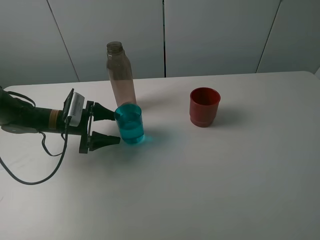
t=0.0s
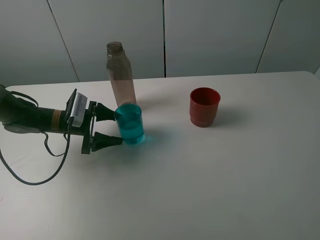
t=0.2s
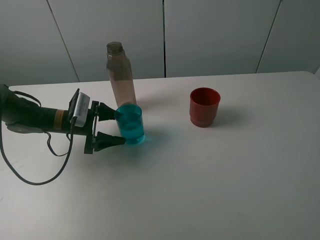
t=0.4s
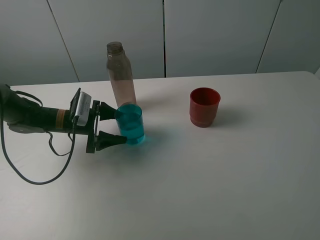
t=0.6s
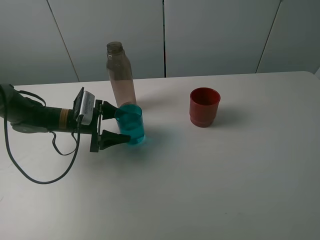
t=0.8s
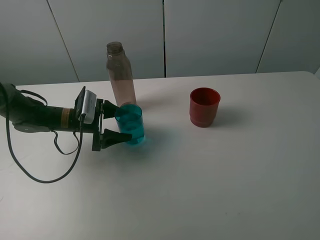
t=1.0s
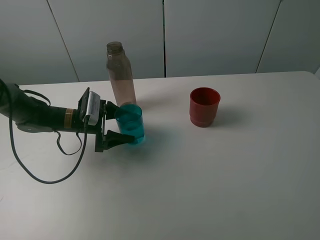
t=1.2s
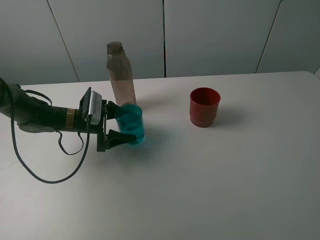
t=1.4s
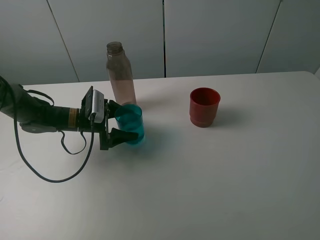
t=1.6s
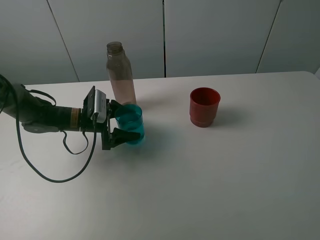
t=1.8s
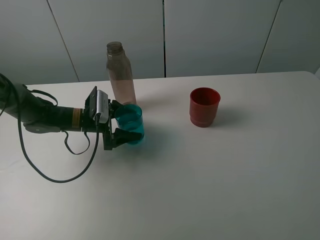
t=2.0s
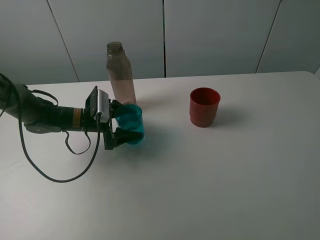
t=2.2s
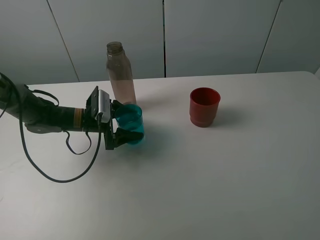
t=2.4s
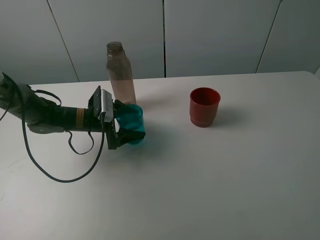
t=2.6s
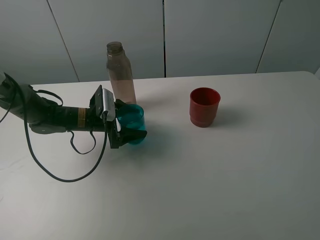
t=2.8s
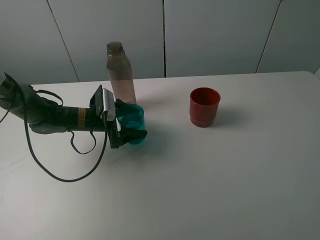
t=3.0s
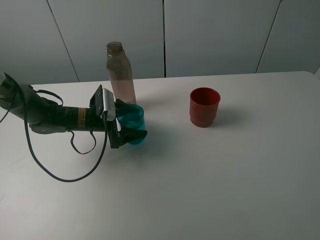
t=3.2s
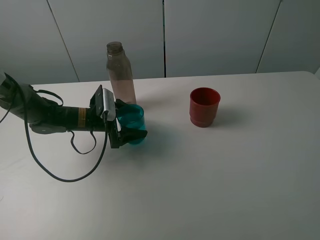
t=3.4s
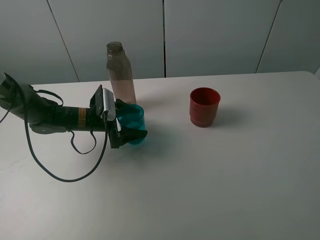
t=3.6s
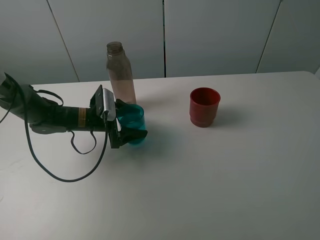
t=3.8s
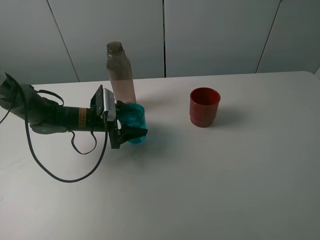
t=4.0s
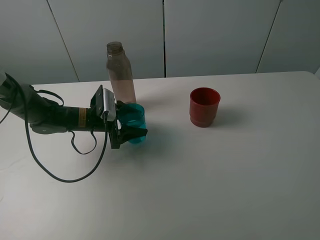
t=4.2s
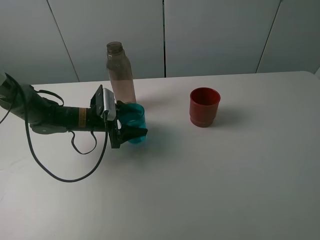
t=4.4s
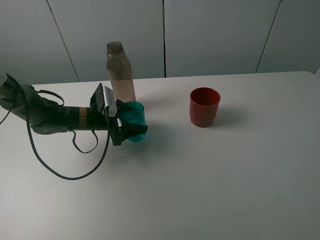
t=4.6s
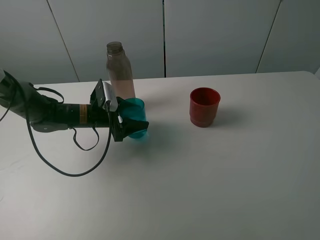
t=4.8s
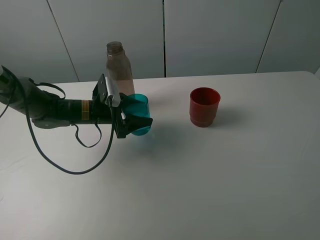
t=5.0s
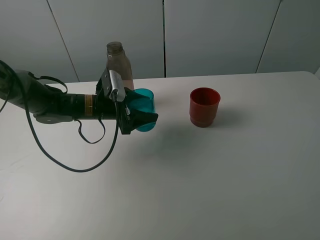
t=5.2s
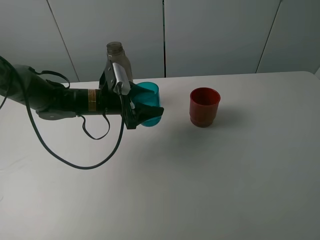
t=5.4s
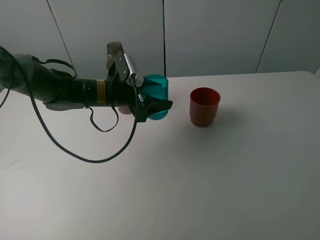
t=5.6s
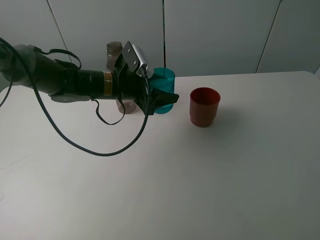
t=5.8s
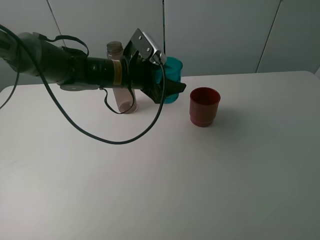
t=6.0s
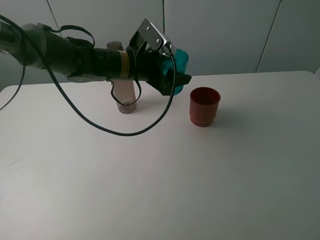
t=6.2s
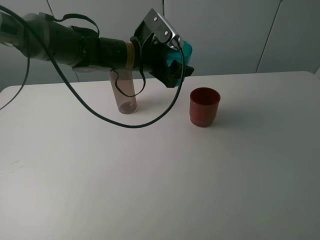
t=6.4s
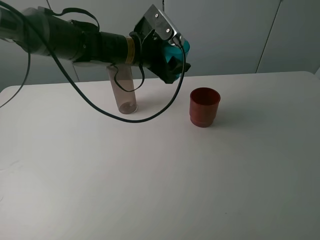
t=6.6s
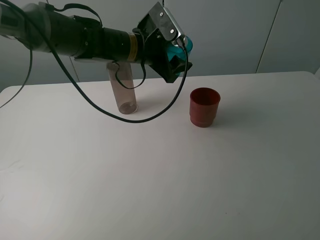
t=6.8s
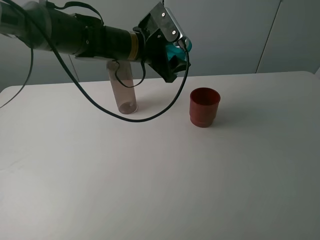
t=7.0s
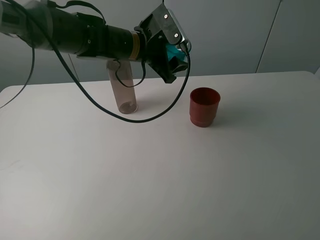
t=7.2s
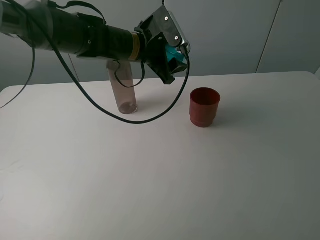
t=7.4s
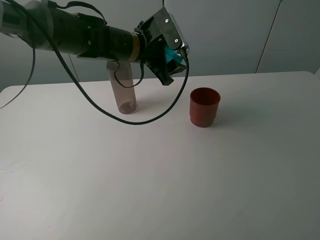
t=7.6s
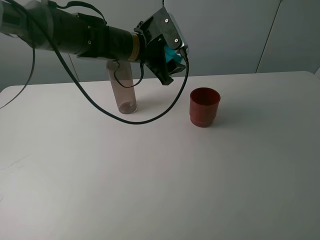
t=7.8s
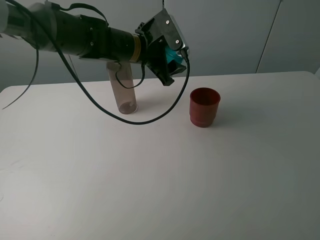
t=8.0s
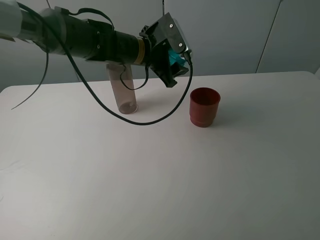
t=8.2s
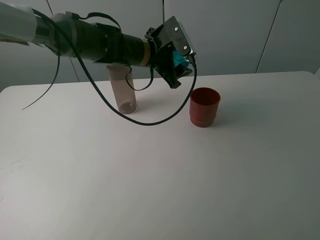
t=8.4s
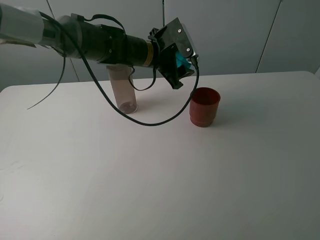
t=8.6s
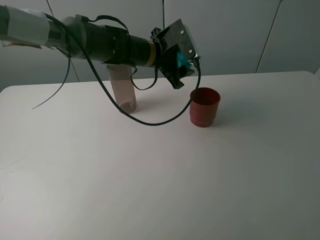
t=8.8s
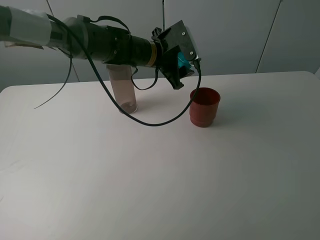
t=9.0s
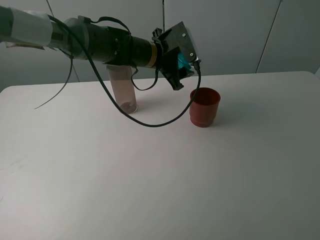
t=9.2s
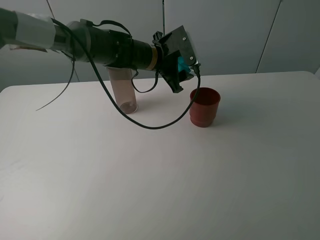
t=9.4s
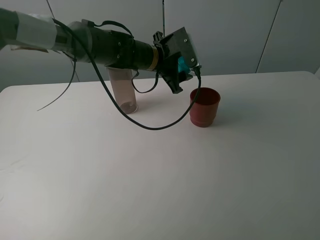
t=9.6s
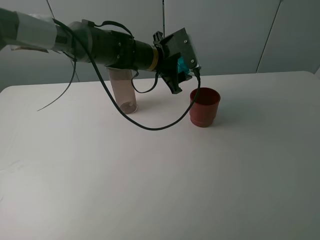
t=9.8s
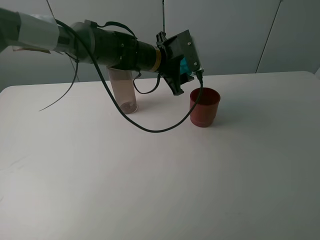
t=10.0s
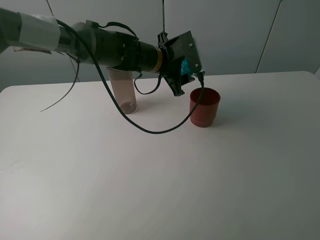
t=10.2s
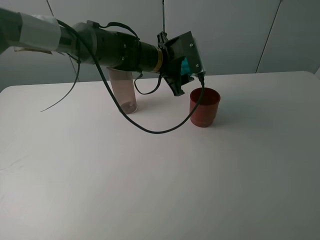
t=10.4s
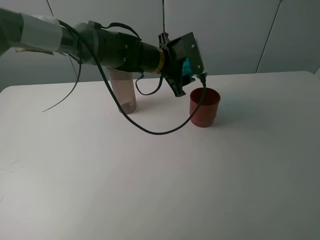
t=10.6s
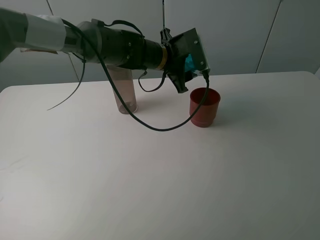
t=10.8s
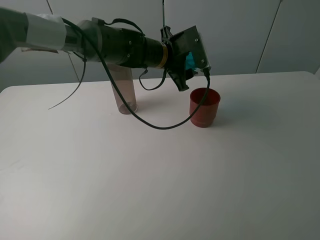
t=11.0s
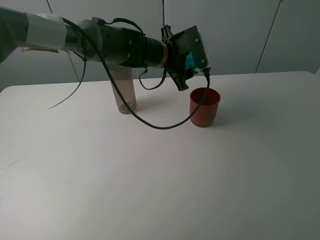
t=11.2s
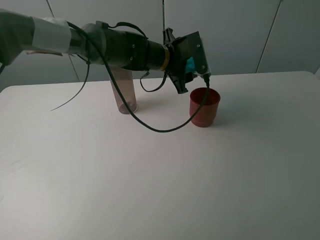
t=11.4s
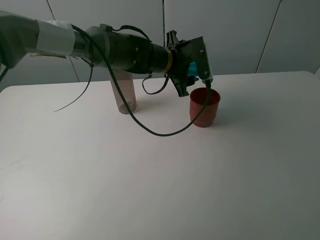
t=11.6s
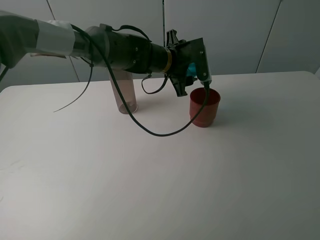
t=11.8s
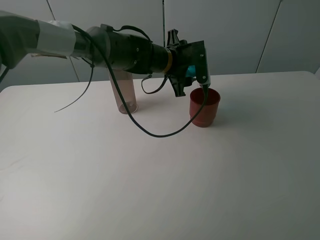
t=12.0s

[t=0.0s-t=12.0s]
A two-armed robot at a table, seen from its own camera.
Task of the whole recording: pick up the bottle and pour water into the cup, then pick up the cup containing water and pour it into another cup.
Step, t=0.0s to t=4.2s: Grasp the blue cup with the left gripper.
t=0.0s to t=1.6s: There are only small adjustments of the grippers.
t=1.6s to t=3.0s: The grippers stay close to where they were, moving slightly.
t=3.0s to t=4.4s: The left gripper closes up.
t=4.4s to t=6.0s: The left gripper heads upward and to the right, covering roughly 15 cm.
t=6.0s to t=7.6s: The left gripper changes place by about 5 cm.
t=7.6s to t=10.4s: The grippers stay close to where they were, moving slightly.
t=10.4s to t=12.0s: The grippers make only small movements.

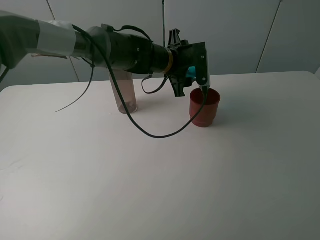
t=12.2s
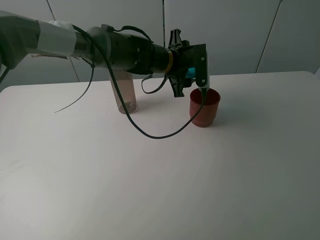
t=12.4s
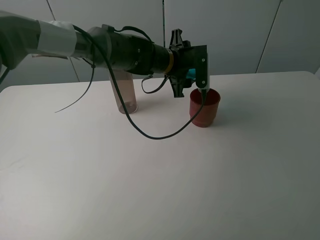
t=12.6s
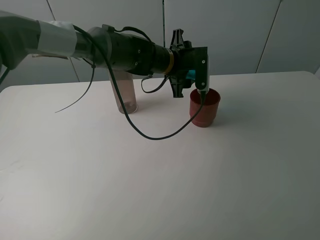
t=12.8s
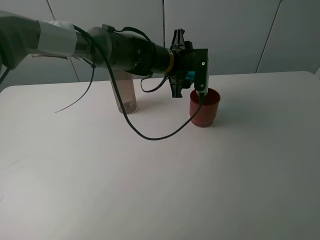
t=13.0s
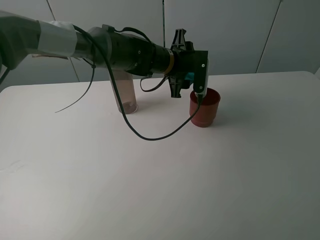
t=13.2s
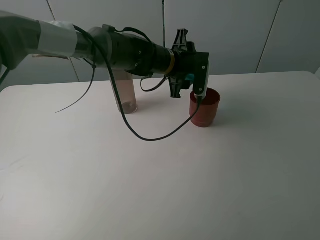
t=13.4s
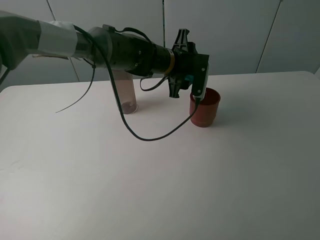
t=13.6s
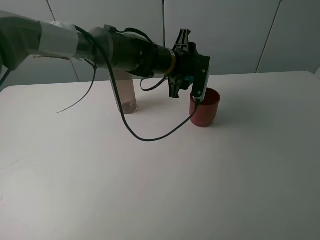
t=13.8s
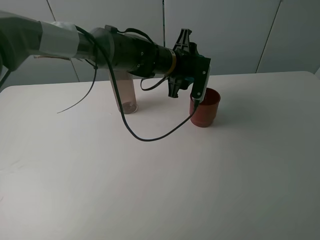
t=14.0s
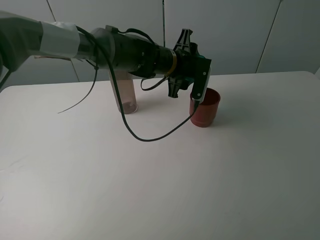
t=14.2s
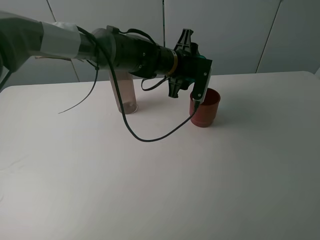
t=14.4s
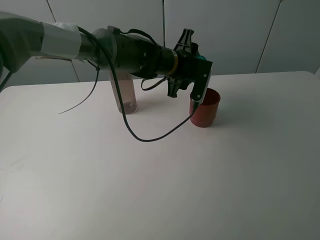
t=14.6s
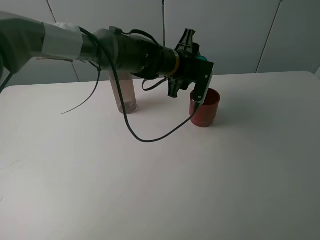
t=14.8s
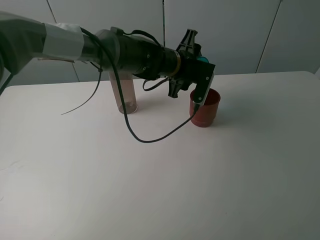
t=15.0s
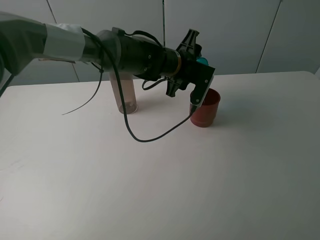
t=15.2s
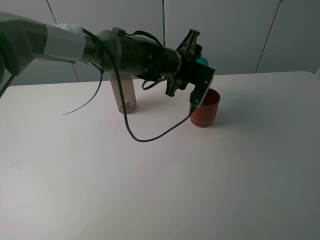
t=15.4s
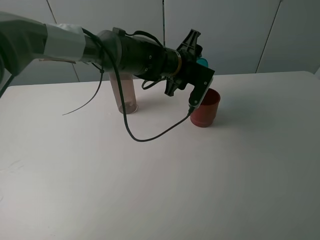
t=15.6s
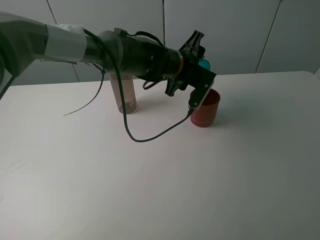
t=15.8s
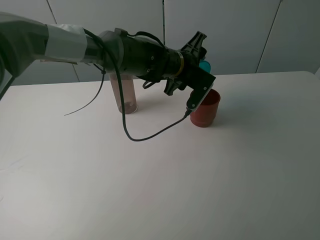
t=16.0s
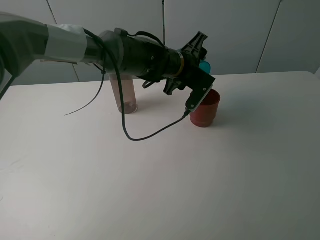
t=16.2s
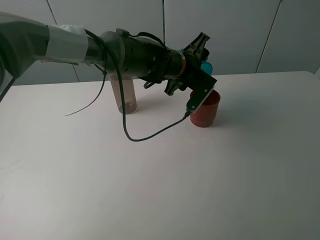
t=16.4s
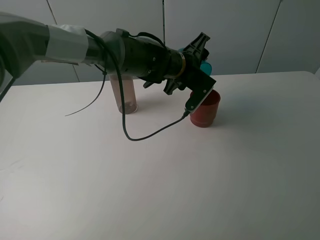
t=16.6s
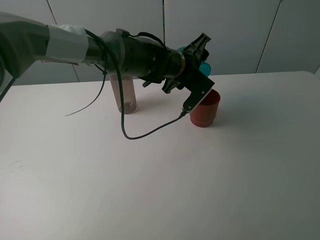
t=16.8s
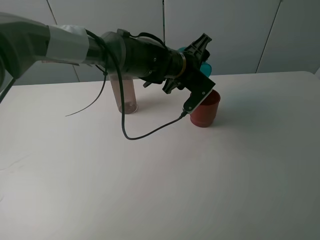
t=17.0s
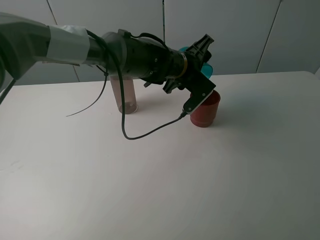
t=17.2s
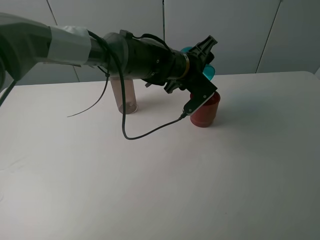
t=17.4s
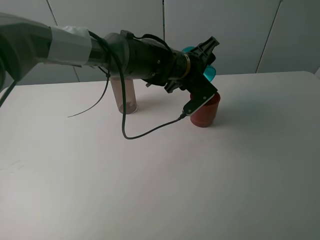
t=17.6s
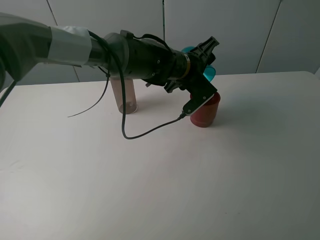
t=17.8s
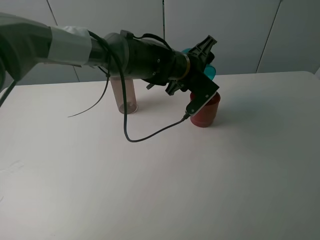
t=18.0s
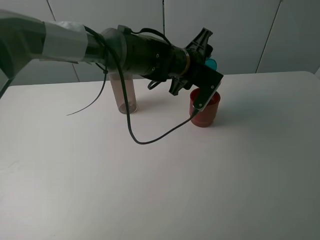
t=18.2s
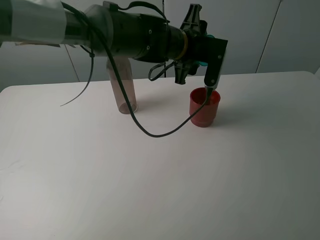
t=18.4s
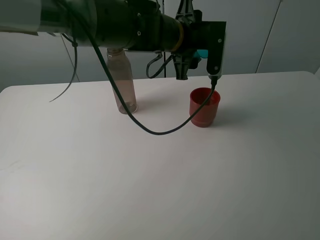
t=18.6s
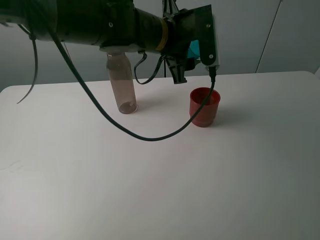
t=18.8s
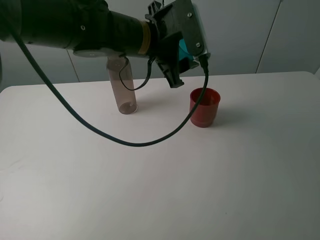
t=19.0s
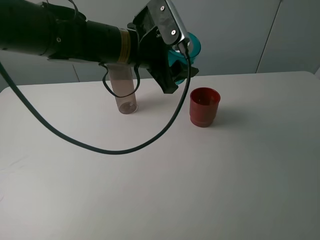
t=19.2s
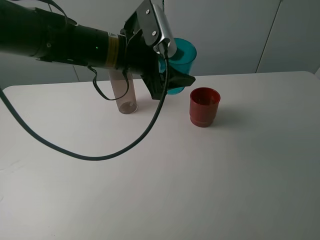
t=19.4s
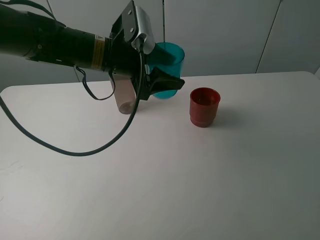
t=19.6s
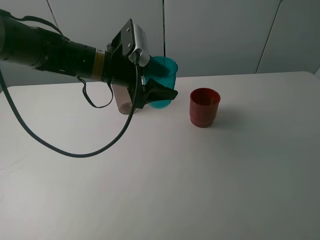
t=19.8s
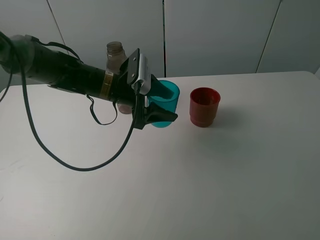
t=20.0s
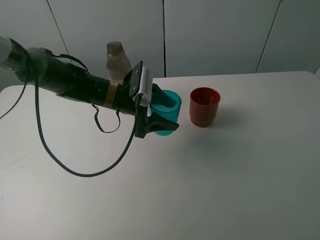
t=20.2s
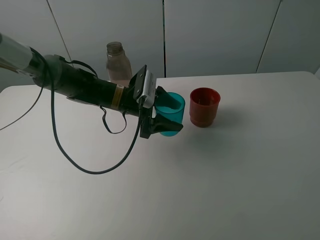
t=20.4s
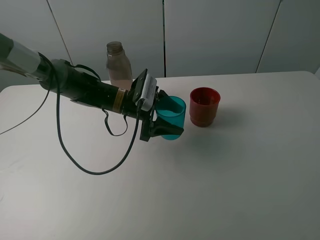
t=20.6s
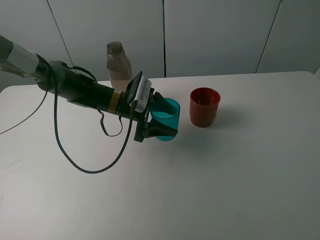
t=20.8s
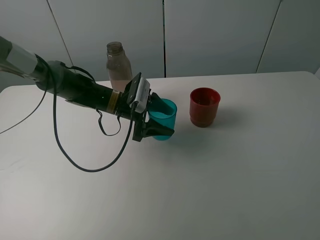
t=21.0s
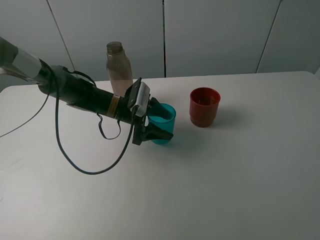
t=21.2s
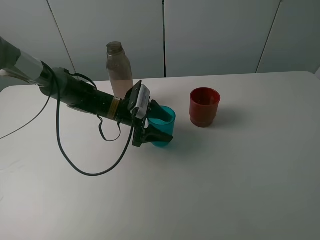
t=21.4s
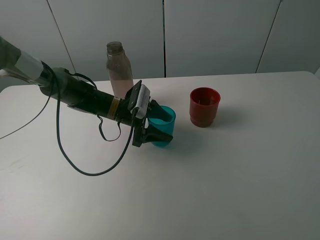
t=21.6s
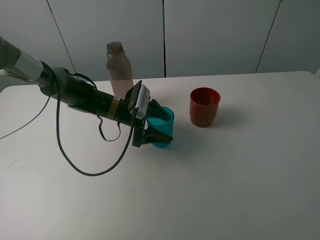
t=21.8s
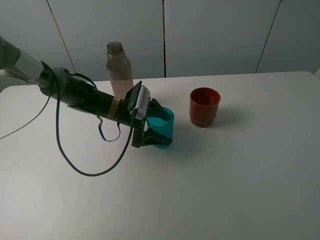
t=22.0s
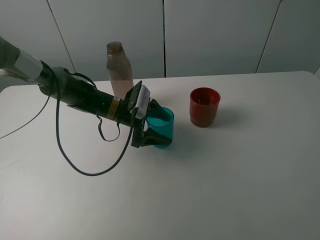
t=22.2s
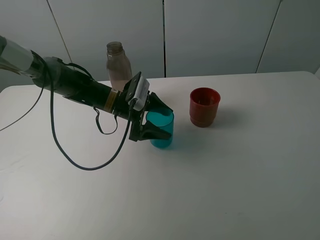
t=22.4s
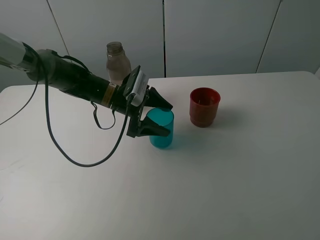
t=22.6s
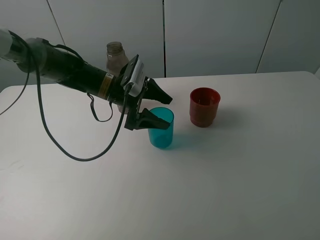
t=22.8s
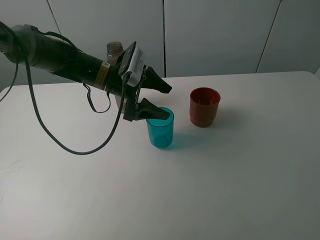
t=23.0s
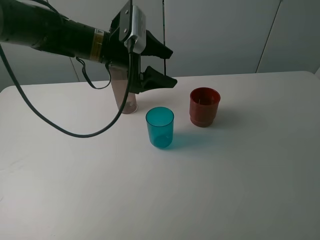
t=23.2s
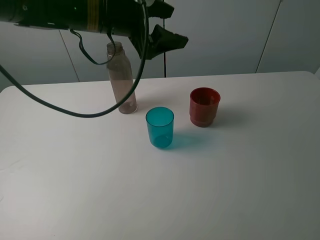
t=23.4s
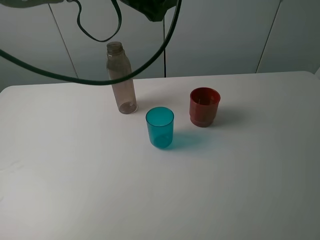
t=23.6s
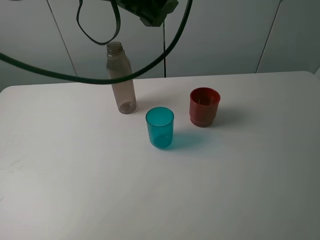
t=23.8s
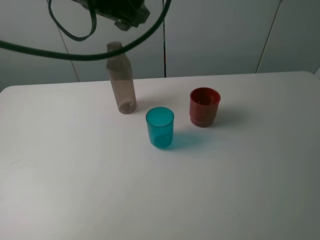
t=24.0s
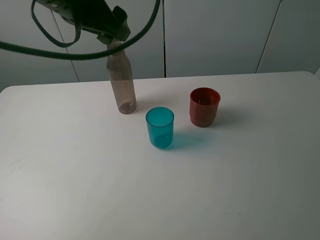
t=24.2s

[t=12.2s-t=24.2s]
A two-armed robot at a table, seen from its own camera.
Task of the whole recording: pick up the bottle and pour water into the cup, then pick up the cup containing water and pour it into another cup.
Step, t=12.2s to t=17.4s: Pour water from blue cup to red cup with the left gripper.
Step, t=17.6s to t=22.6s: Place the blue cup with the left gripper.
t=12.2s to t=13.8s: The grippers move only a little.
t=13.8s to t=15.2s: The grippers make only small movements.
t=15.2s to t=16.6s: The grippers make only small movements.
t=16.6s to t=18.2s: The grippers move only a little.
t=18.2s to t=19.8s: The left gripper heads to the left, covering some 15 cm.
t=19.8s to t=21.2s: The left gripper goes roughly 10 cm downward.
t=21.2s to t=22.6s: The left gripper opens.
t=22.6s to t=24.2s: The left gripper travels upward by some 25 cm.
